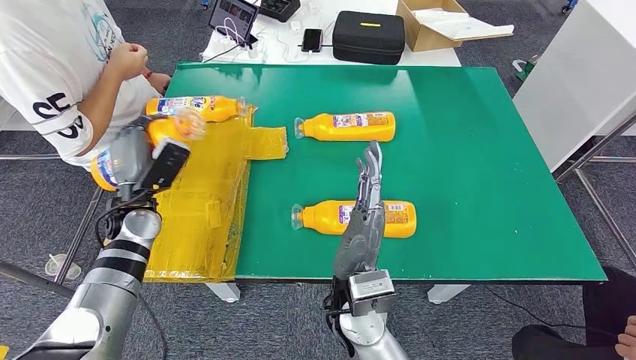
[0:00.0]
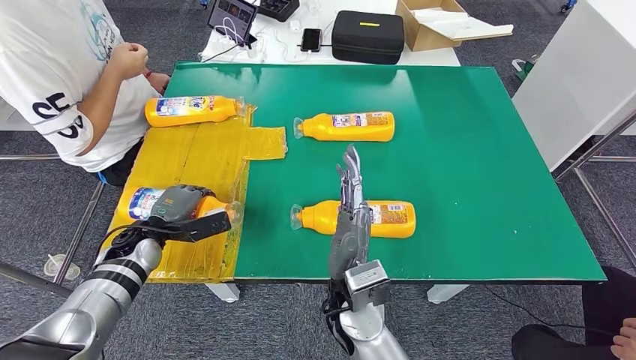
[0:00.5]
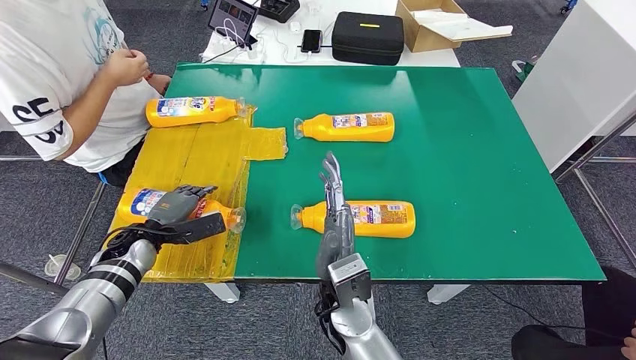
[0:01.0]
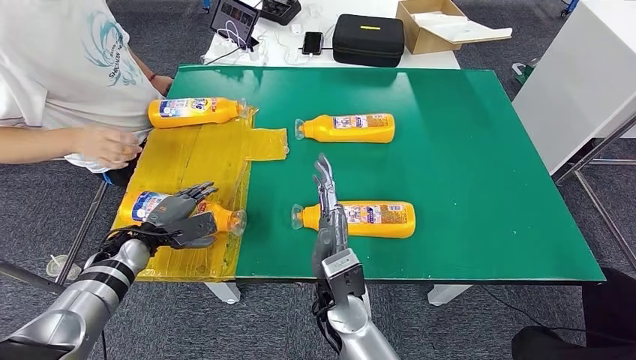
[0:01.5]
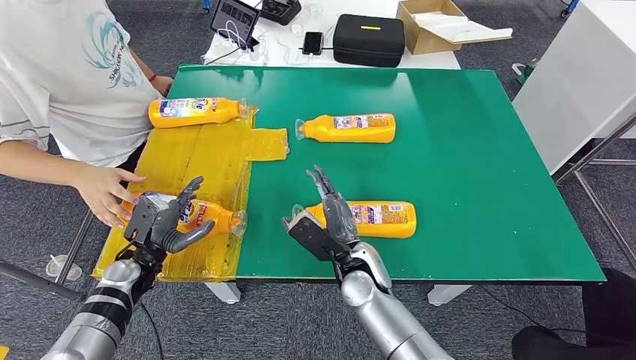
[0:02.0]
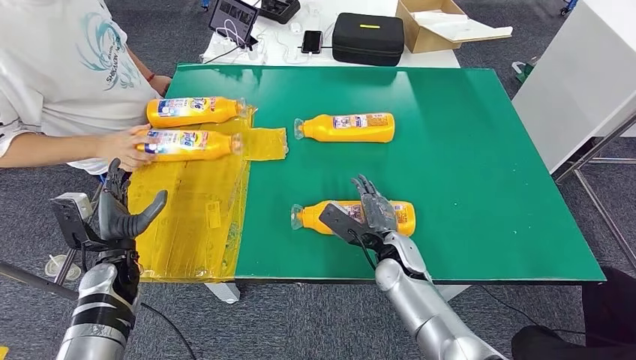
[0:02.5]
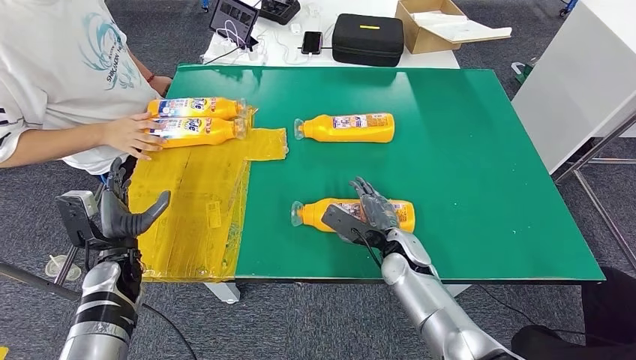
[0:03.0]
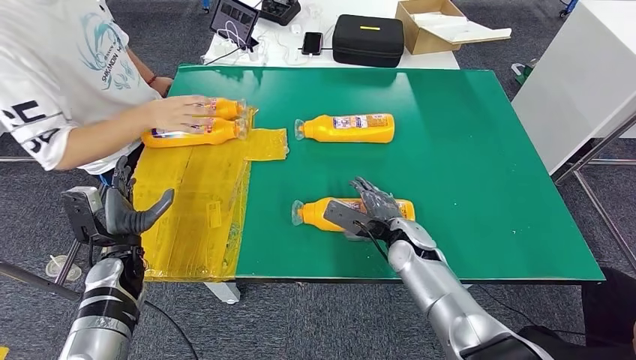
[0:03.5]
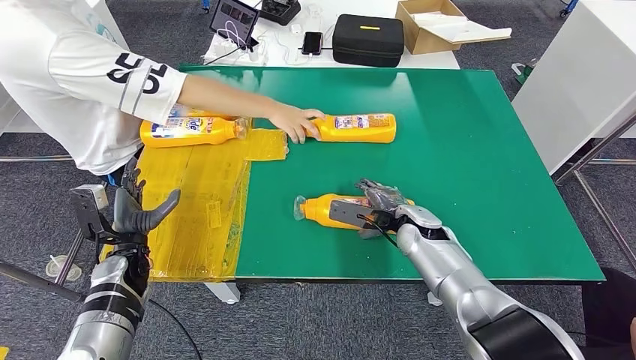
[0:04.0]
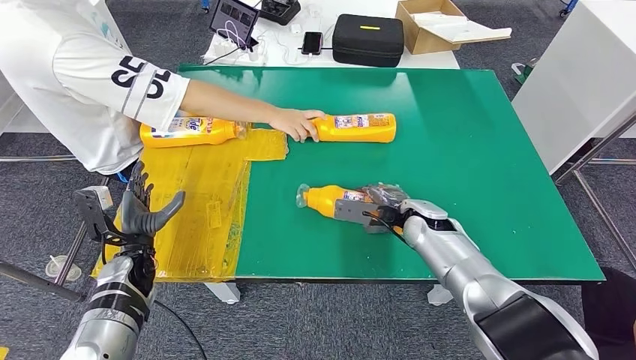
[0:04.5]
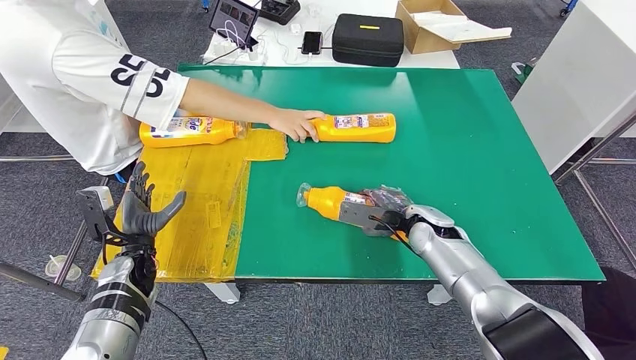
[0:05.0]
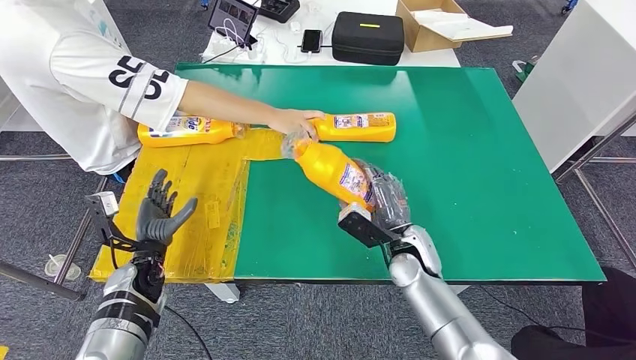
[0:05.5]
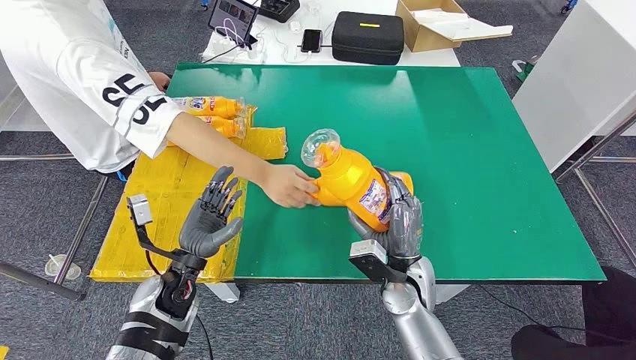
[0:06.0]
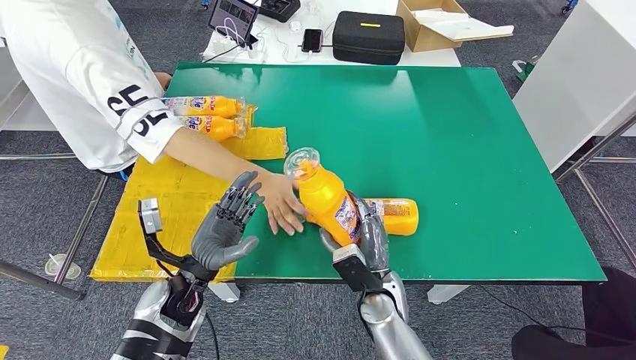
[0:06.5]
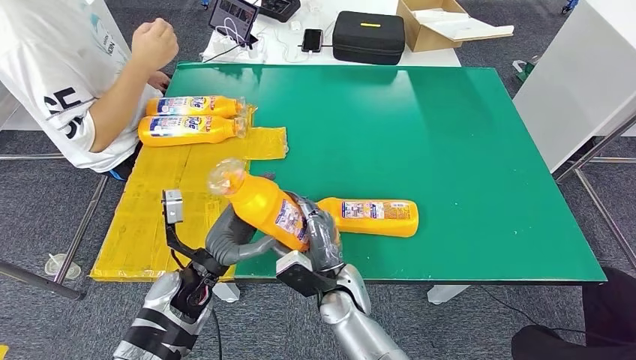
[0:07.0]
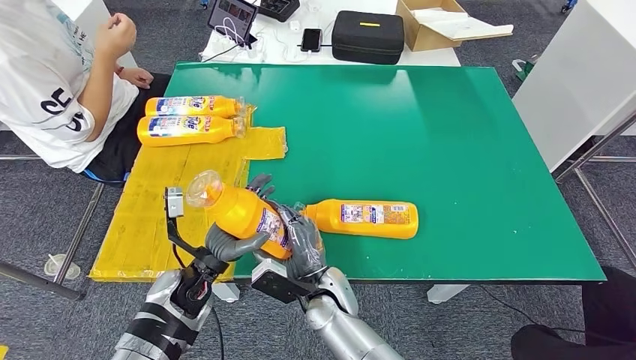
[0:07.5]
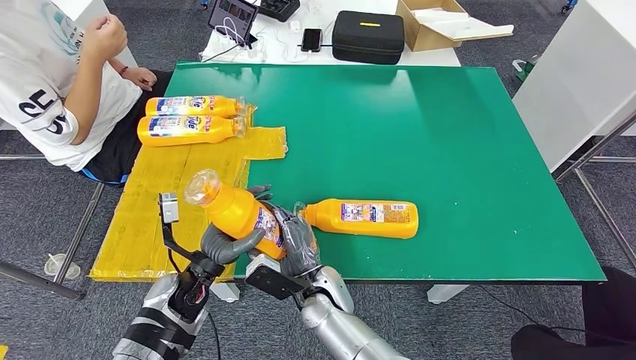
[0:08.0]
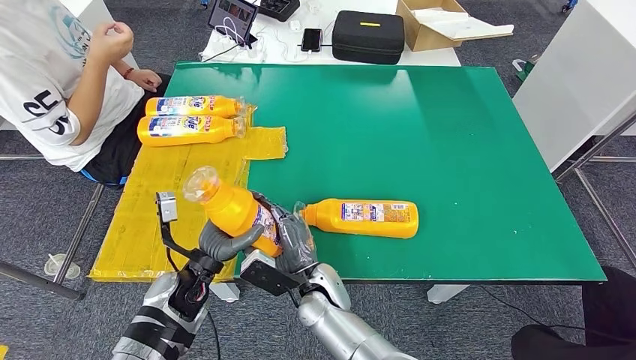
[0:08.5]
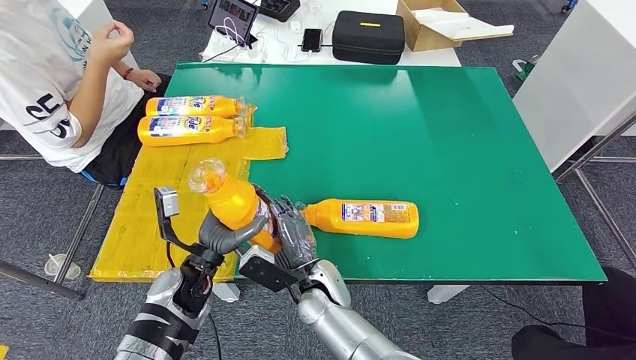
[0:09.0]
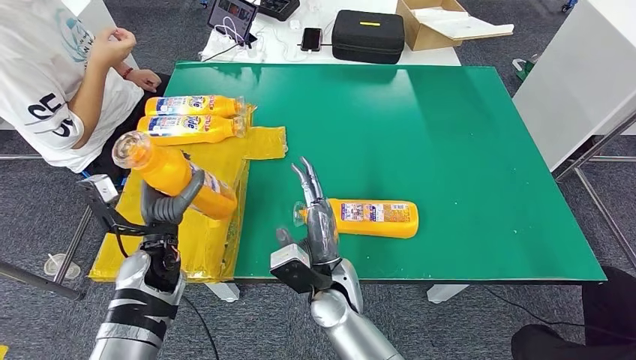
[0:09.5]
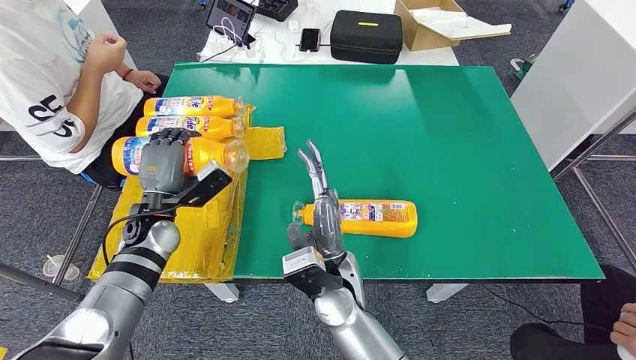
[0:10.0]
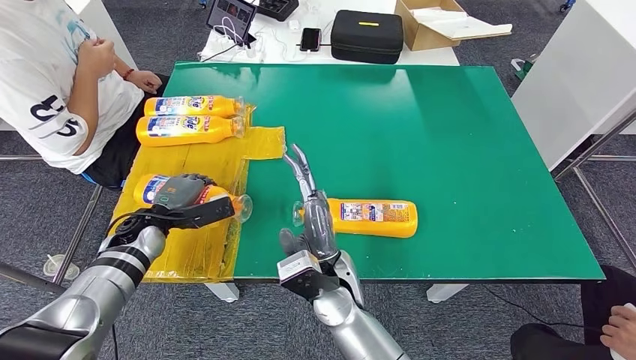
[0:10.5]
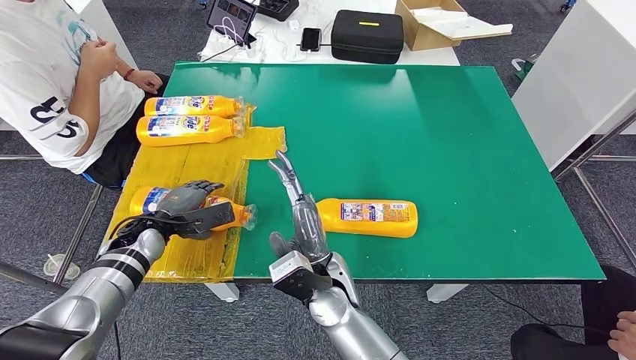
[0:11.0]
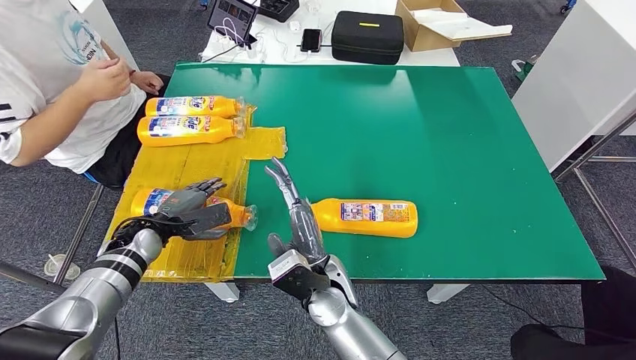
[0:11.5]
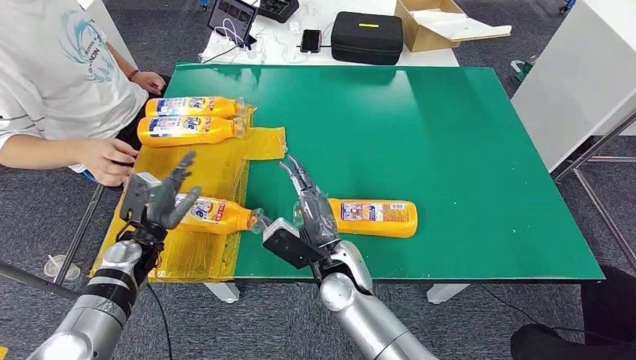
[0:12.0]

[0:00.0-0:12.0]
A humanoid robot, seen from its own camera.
Step, 0:02.0 to 0:06.5: Pick up the fast-moving consumer goods bottle from the table.
Step, 0:07.0 to 0:11.0: Flip the fast-moving consumer goods bottle to the front side.

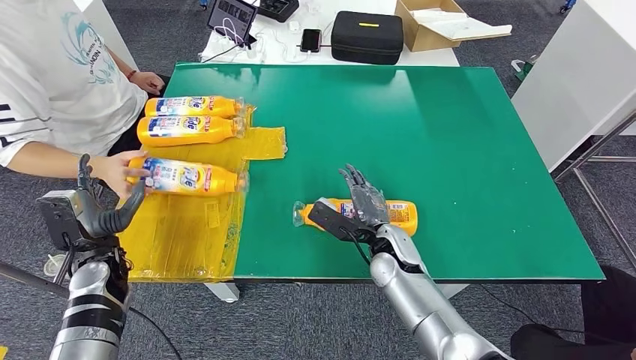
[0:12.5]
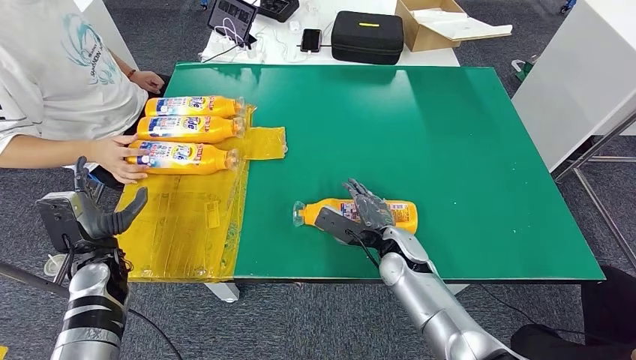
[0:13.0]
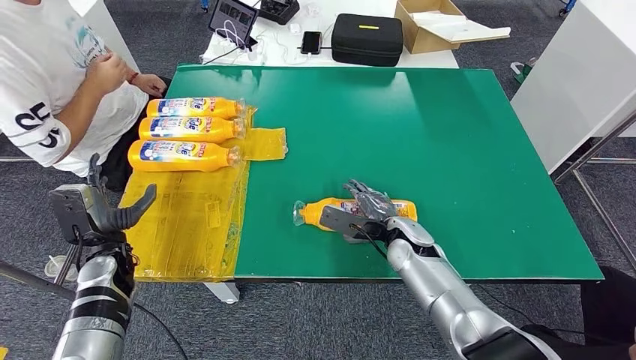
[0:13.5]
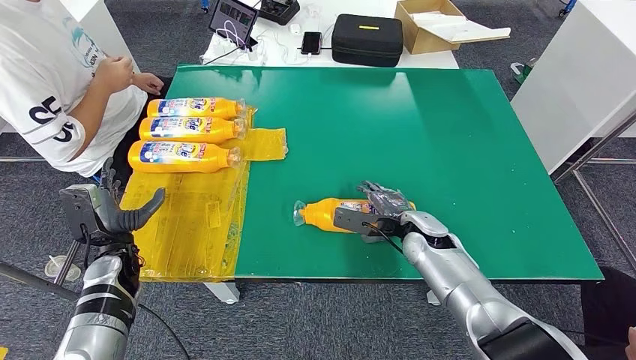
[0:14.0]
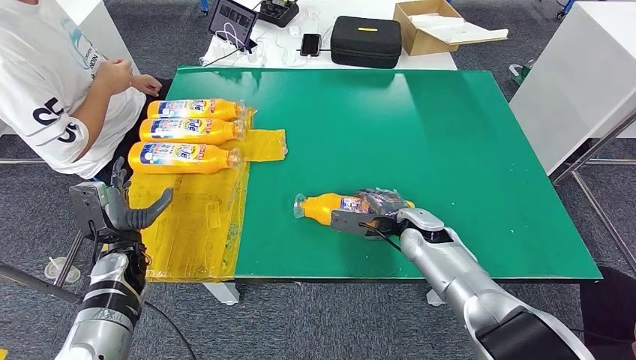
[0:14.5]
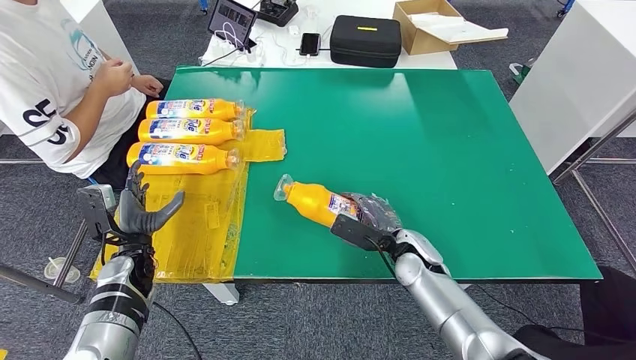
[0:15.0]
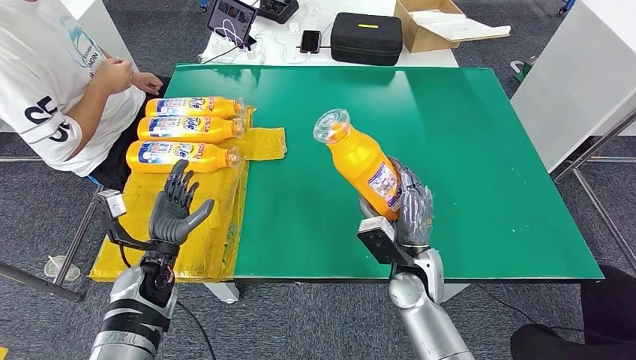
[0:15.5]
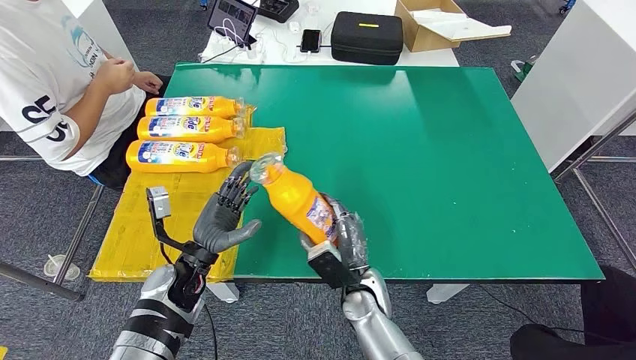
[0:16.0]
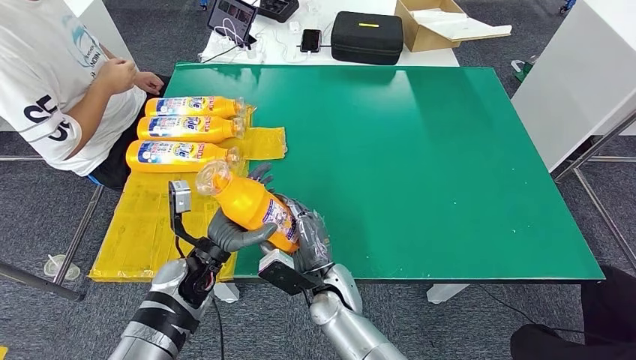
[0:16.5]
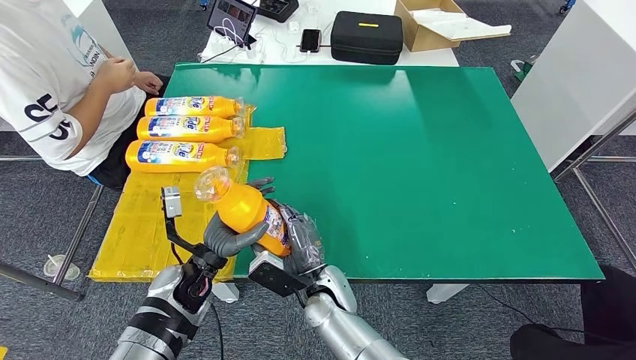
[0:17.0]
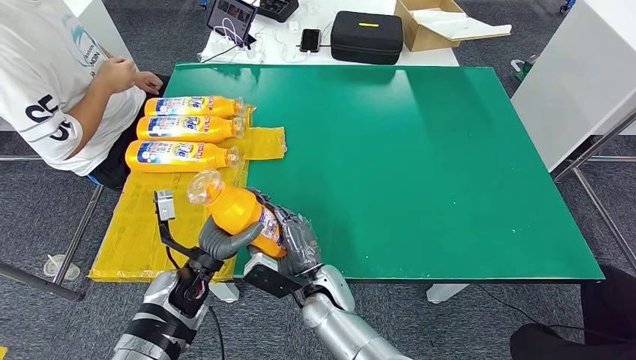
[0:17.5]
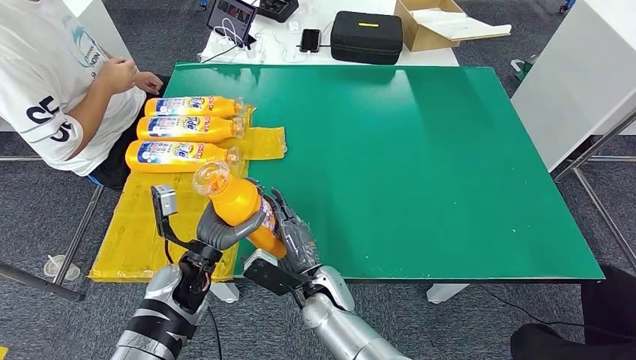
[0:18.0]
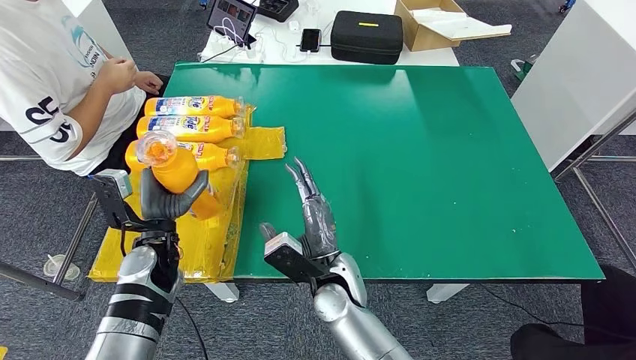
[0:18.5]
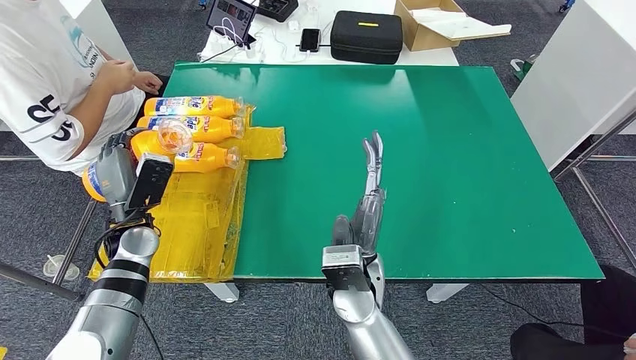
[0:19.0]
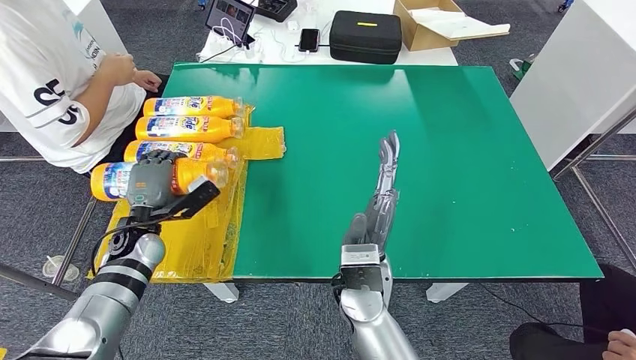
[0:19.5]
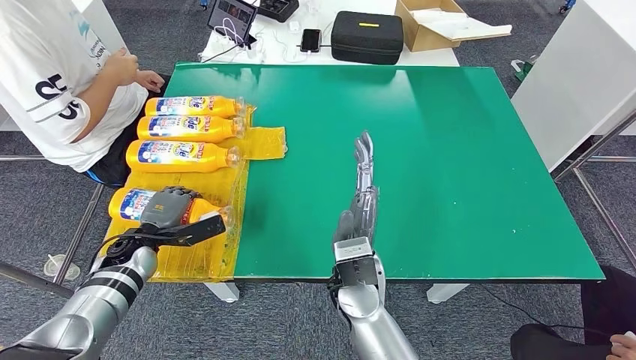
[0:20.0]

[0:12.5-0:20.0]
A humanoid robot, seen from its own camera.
Step, 0:12.5 to 0:16.5: Pick up the fast-moving consumer goods bottle from the table.
Step, 0:17.0 to 0:20.0: Flip the fast-moving consumer goods bottle to the front side.
0:16.5 to 0:18.0: The hands stay close to where they were, moving slightly.
